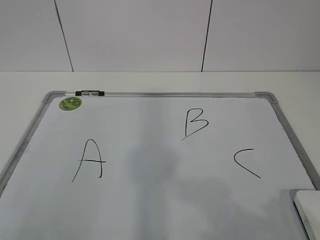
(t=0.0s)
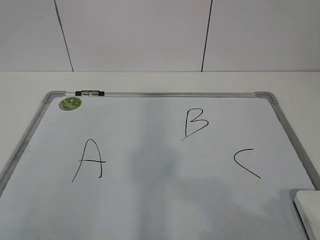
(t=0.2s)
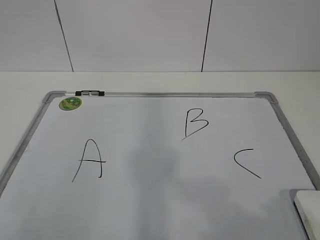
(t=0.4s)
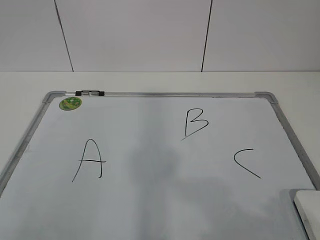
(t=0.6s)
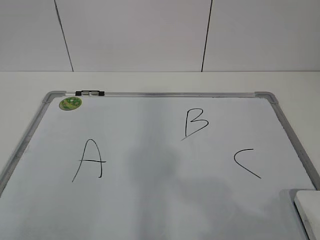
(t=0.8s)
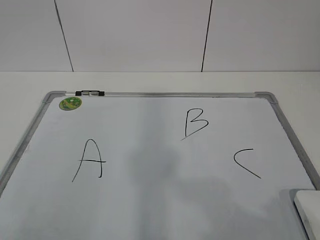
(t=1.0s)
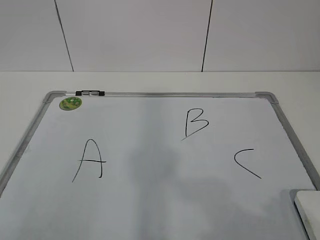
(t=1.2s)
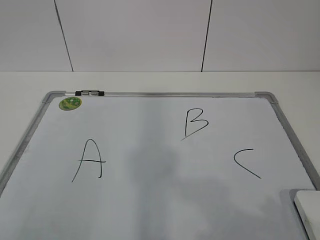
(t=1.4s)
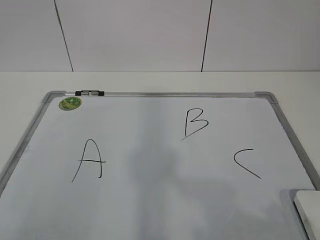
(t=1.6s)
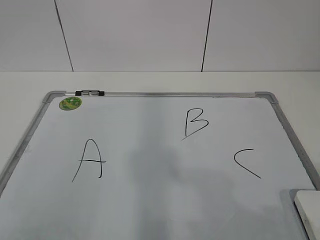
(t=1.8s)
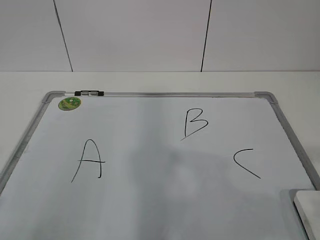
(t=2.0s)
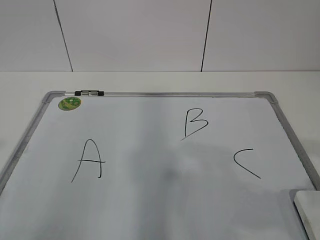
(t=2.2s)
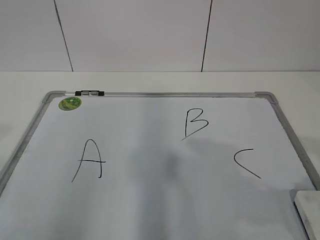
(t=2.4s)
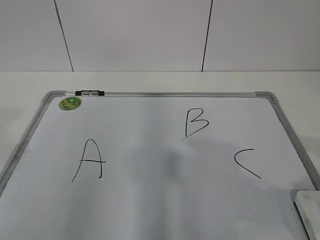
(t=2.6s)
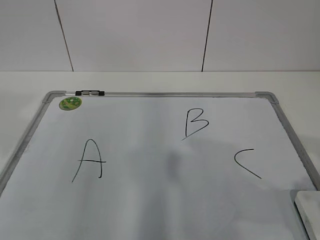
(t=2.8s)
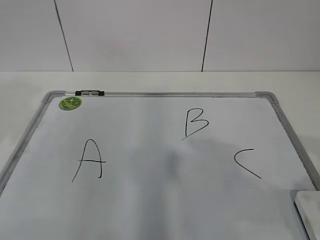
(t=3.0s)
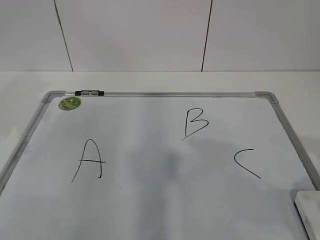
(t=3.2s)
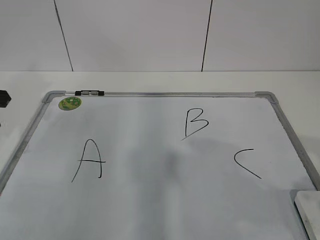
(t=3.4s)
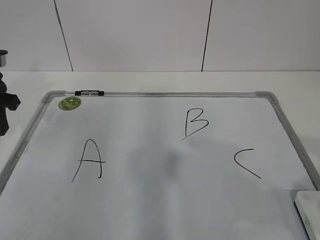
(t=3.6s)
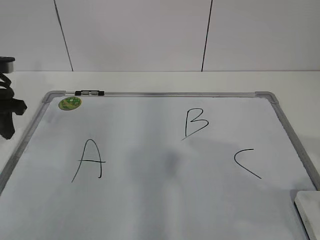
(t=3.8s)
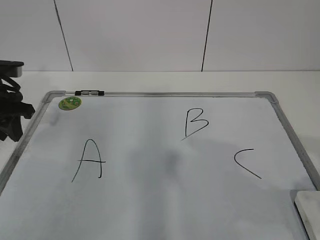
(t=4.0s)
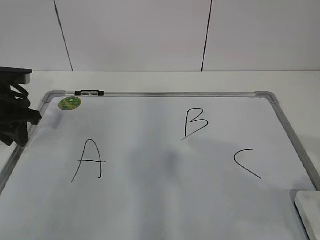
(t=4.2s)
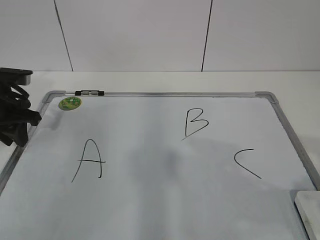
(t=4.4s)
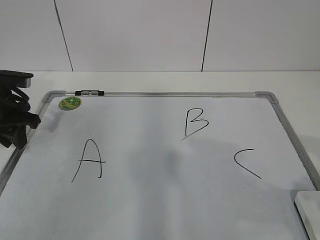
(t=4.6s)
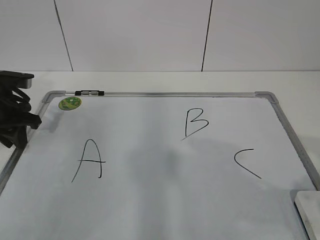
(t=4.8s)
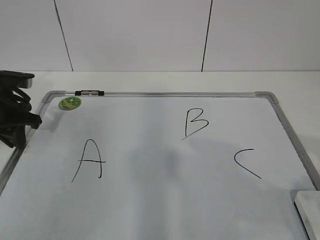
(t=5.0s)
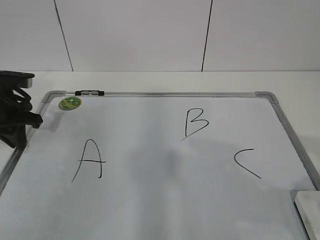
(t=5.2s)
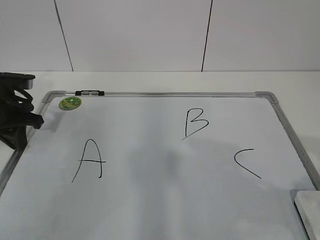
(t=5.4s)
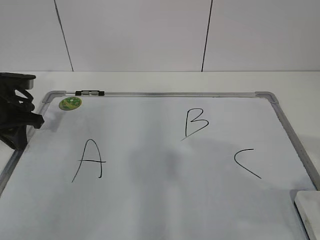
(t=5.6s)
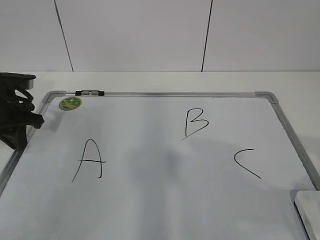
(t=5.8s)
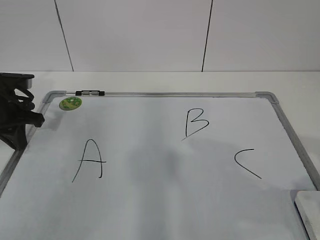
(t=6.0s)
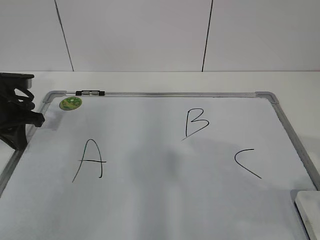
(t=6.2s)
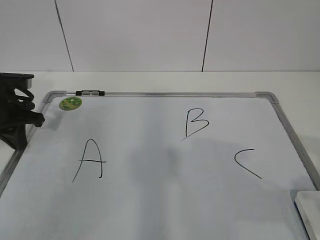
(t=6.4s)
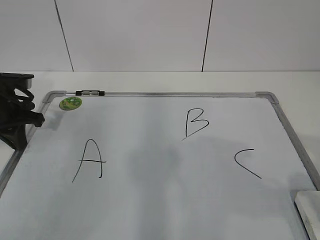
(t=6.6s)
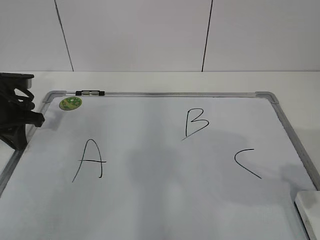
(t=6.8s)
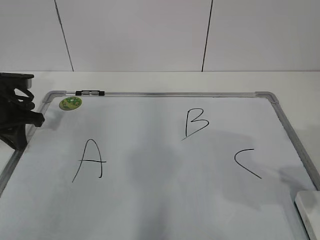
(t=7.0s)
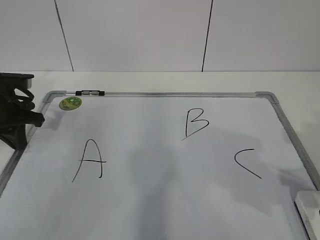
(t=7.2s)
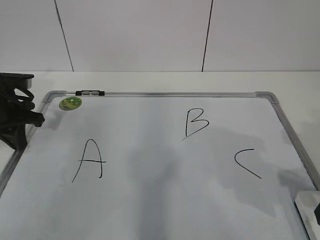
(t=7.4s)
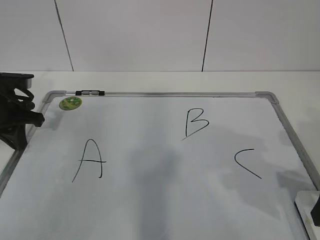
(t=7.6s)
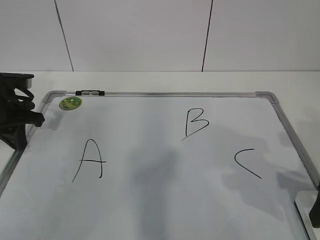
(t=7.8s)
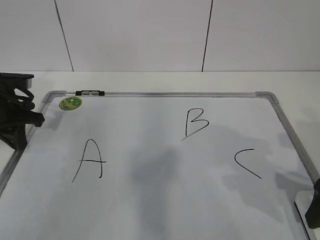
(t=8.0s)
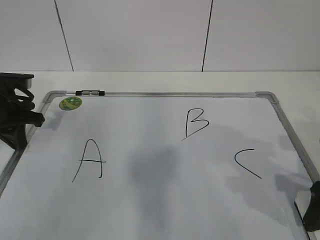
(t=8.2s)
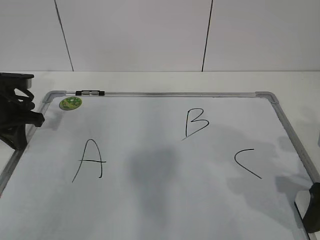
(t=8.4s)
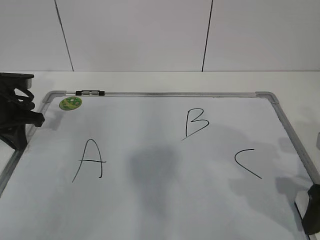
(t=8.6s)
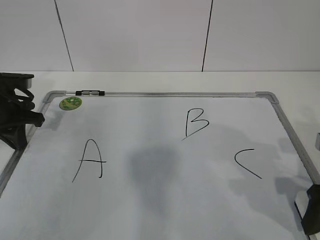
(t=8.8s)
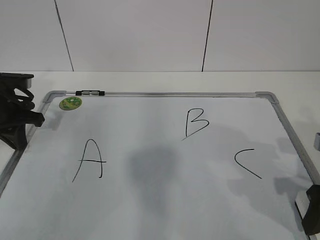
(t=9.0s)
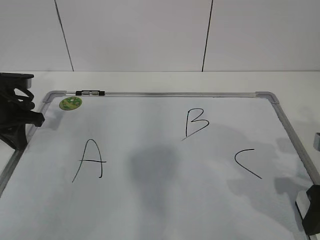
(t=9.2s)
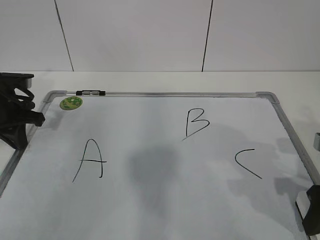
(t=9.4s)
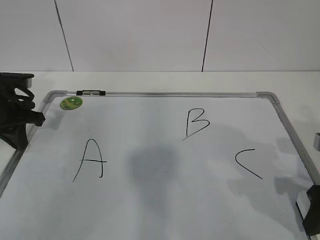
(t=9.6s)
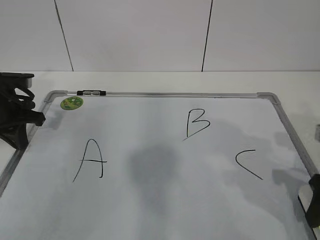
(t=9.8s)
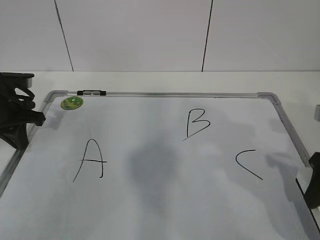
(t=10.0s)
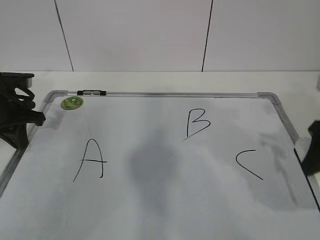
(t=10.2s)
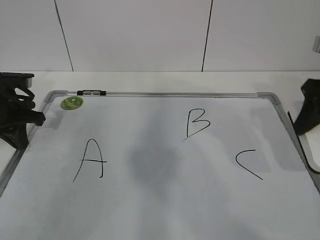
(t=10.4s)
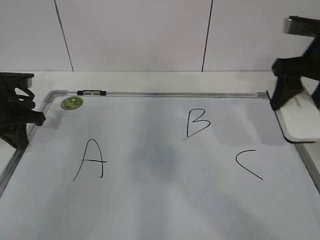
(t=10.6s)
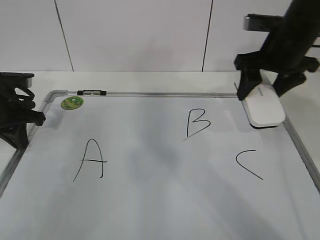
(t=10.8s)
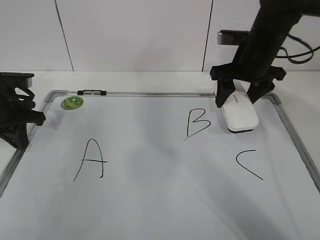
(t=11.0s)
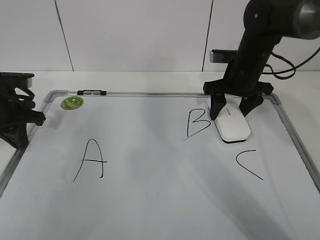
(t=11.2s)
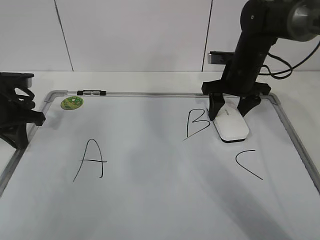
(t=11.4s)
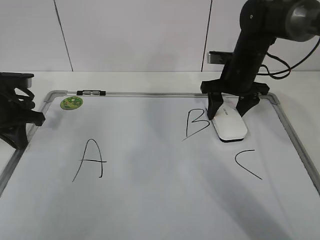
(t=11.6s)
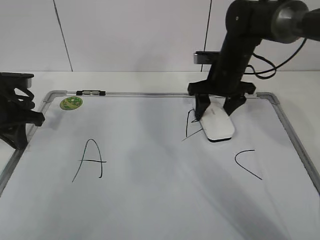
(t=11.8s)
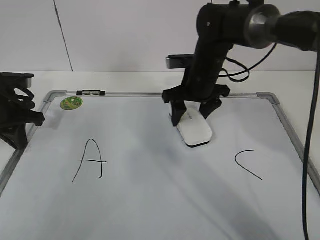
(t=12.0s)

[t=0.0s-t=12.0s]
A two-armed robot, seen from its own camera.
Task of the whole recording: pick up the eraser on the blackboard and erase the letter "B".
Step, t=0.0s to t=4.8s: Hold the drawing board steady with your left hand.
t=3.0s to t=4.4s: The left gripper moves downward and forward, some 20 cm.
t=4.4s to t=6.0s: The left gripper closes.
t=6.0s to t=7.6s: The right gripper moves forward and downward, roughly 15 cm, and opens.
t=7.6s to t=9.0s: The right gripper closes.
t=9.0s to t=10.4s: The right gripper is displaced upward and forward by about 15 cm.
t=10.4s to t=12.0s: The right gripper is displaced to the left, forward and downward by roughly 25 cm.

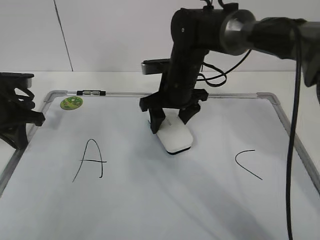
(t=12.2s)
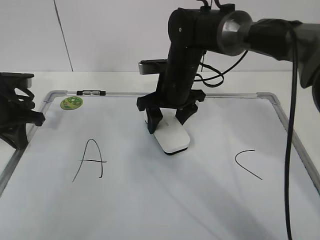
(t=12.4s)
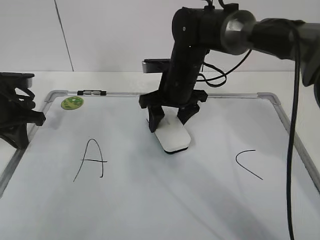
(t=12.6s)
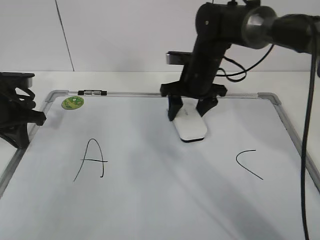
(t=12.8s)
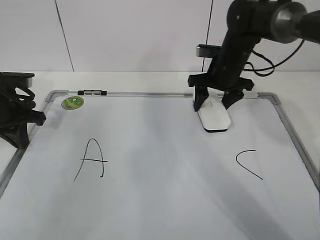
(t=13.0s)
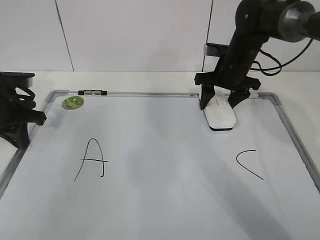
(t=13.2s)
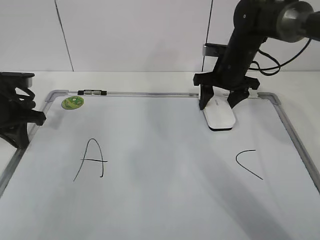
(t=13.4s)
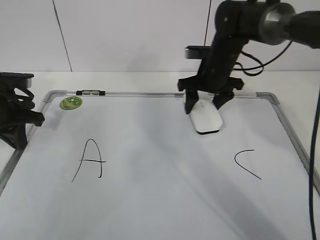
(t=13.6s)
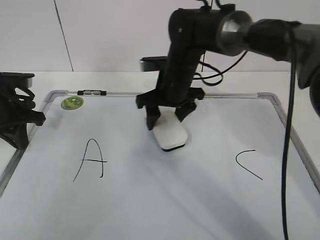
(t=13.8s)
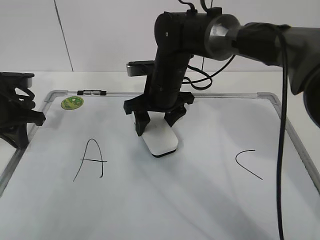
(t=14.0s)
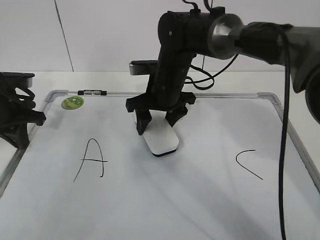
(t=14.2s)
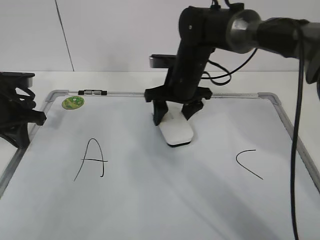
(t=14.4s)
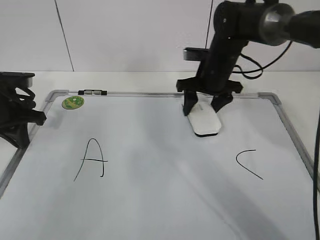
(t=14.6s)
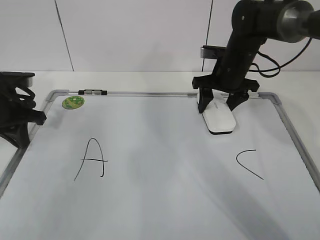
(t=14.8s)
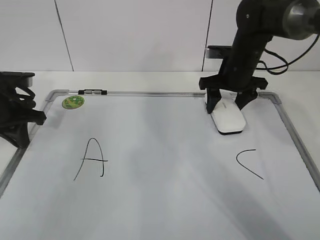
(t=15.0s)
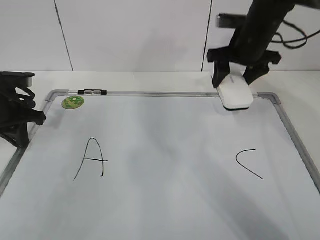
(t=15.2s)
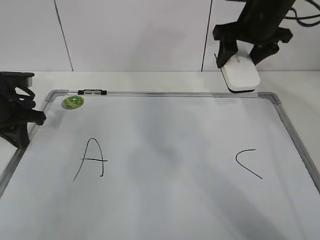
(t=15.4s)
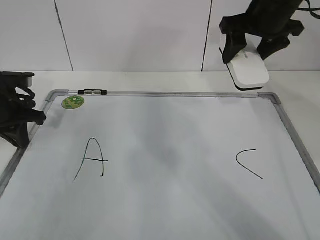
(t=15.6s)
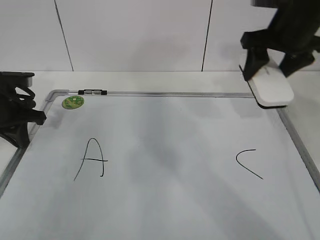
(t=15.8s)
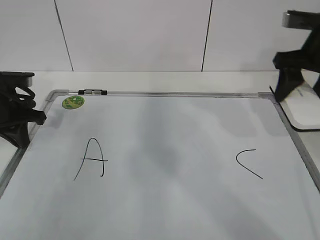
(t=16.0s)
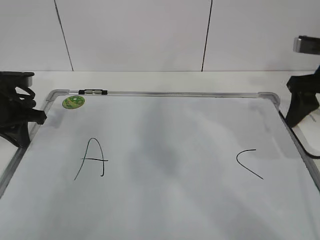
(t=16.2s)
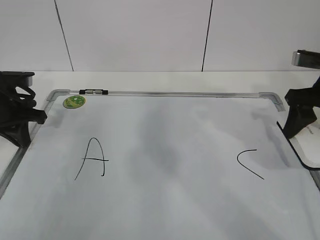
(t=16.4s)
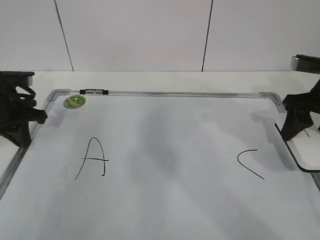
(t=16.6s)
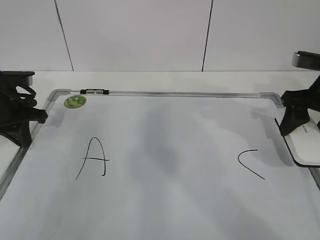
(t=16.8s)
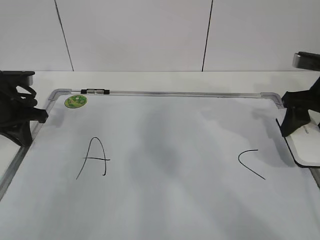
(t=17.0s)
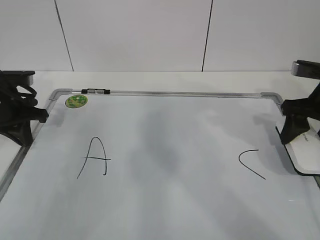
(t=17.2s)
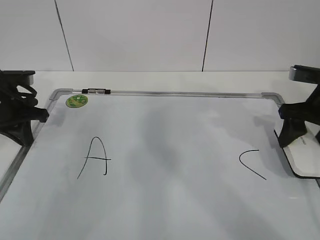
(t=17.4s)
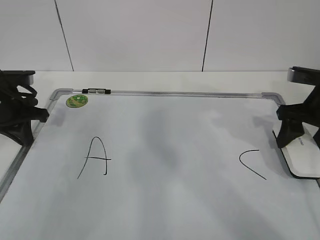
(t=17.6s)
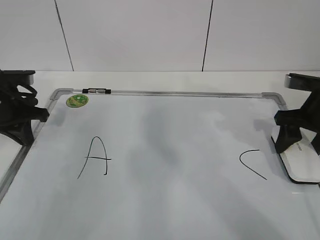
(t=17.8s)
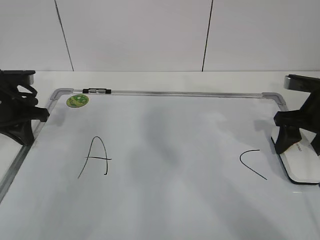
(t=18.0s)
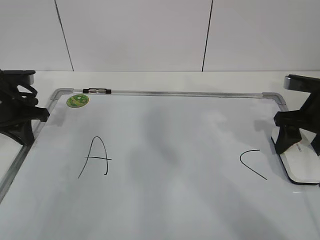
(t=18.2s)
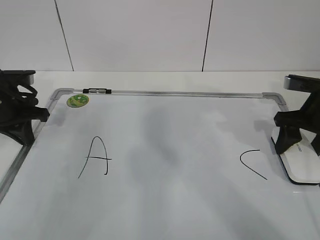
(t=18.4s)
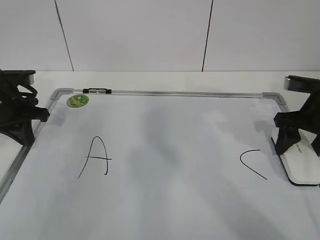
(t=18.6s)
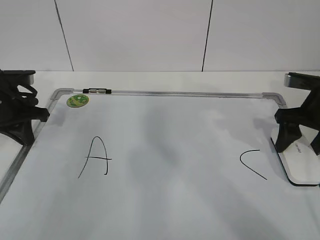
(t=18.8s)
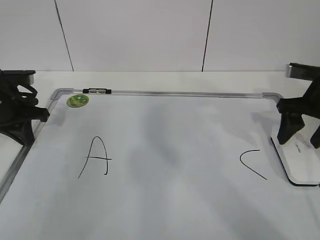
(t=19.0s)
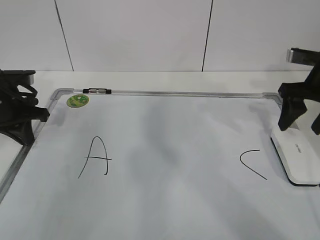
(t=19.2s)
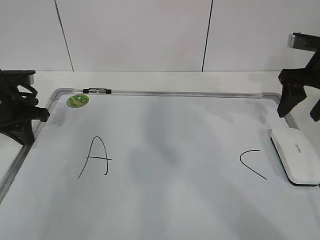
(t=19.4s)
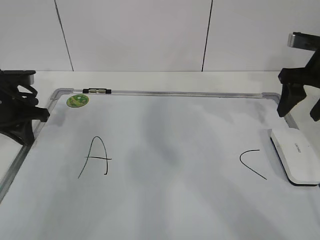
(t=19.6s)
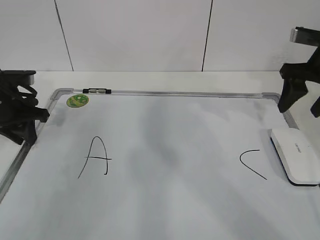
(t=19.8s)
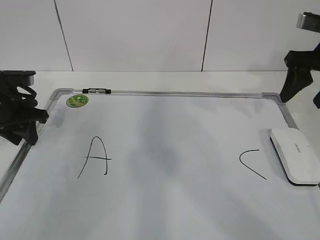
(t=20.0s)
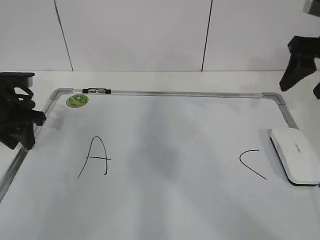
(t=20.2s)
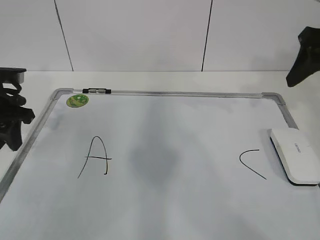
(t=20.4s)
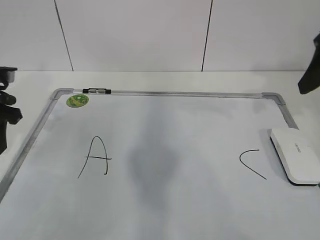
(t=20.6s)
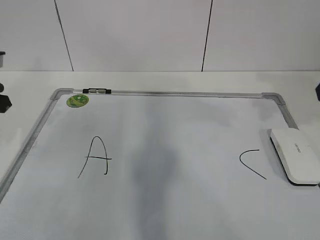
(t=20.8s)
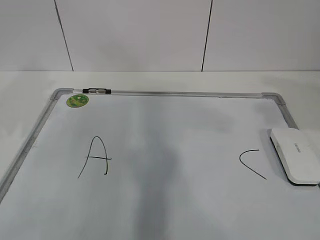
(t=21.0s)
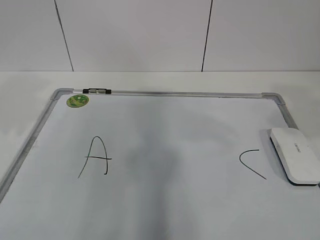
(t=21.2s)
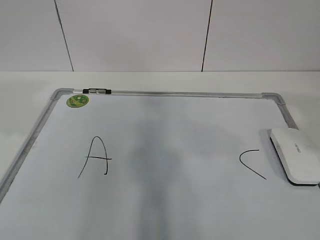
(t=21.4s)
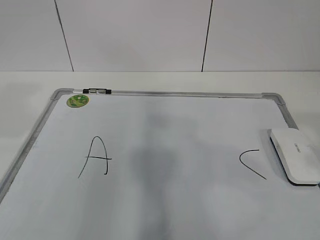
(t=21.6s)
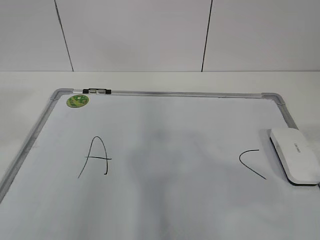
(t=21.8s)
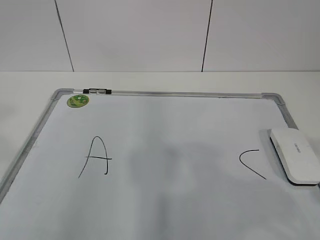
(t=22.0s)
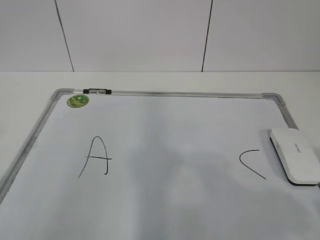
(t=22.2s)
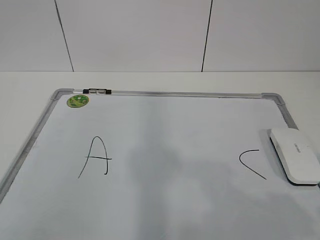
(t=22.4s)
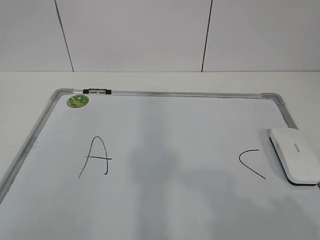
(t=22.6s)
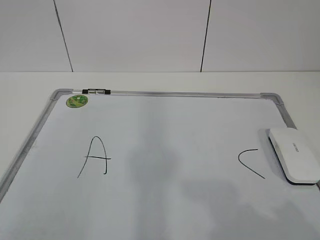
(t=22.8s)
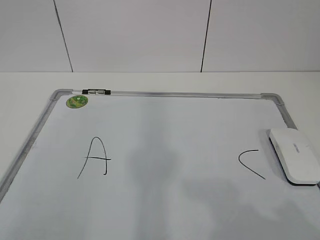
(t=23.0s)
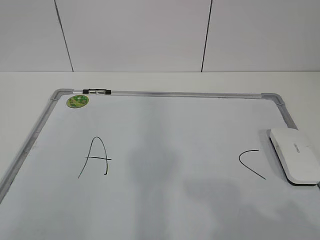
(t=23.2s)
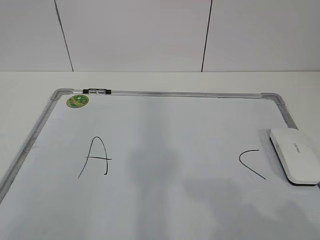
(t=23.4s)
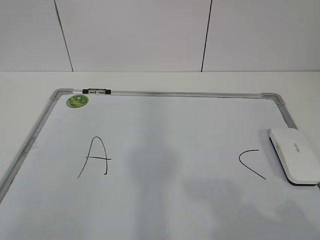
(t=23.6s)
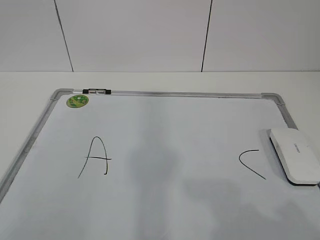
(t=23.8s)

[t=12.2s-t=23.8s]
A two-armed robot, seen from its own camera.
Task of the whole recording: pick up the eraser on the blackboard and erase the letter "B".
Step, t=12.6s to t=15.4s: Put down the eraser with your right hand.
t=12.2s to t=13.6s: The right gripper shifts roughly 10 cm to the right.
t=13.6s to t=15.0s: The right gripper goes to the left and returns, roughly 10 cm each way.
t=15.0s to t=16.6s: The right gripper shifts approximately 15 cm backward and to the right.
t=16.6s to t=18.0s: The grippers move only a little.
t=18.0s to t=19.4s: The right gripper moves upward, about 5 cm, and opens up.
t=19.4s to t=21.0s: The right gripper heads backward and upward, covering approximately 20 cm; the left gripper moves upward and backward, roughly 15 cm, and opens its fingers.
t=21.0s to t=22.4s: The left gripper shifts approximately 30 cm backward. The right gripper moves backward and downward, some 20 cm.
